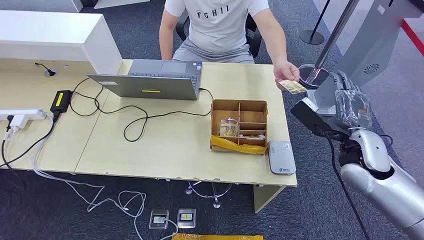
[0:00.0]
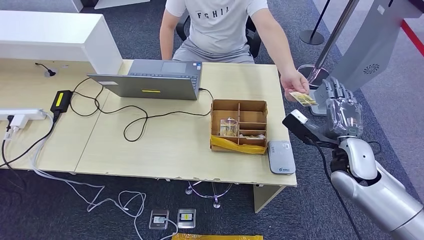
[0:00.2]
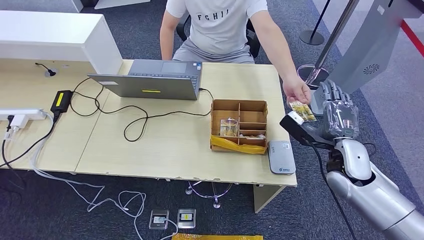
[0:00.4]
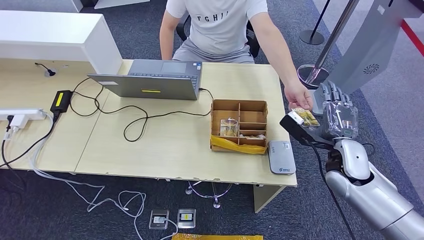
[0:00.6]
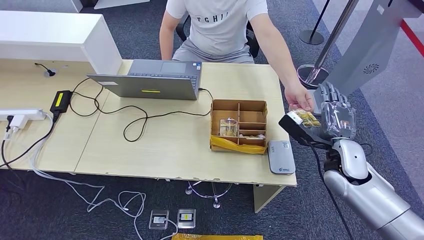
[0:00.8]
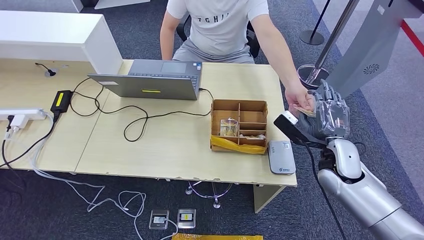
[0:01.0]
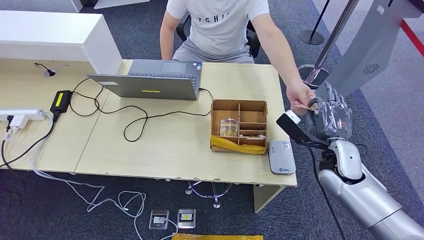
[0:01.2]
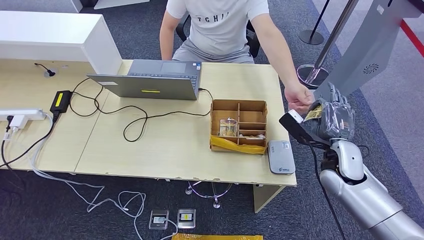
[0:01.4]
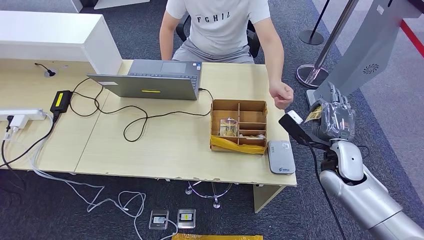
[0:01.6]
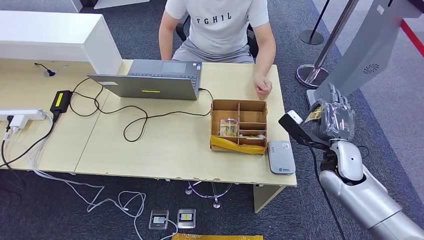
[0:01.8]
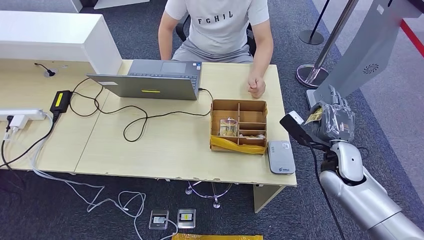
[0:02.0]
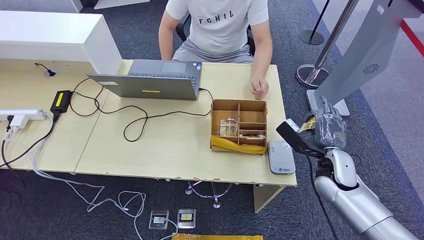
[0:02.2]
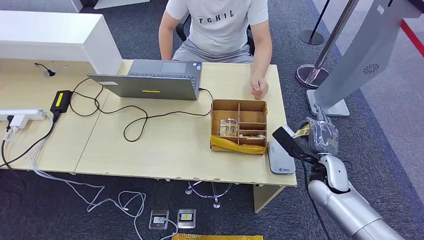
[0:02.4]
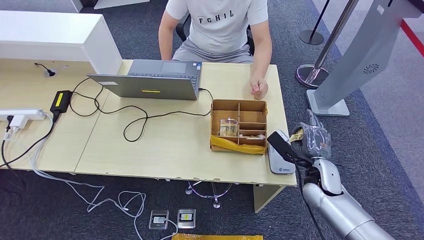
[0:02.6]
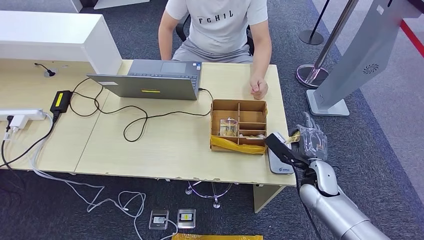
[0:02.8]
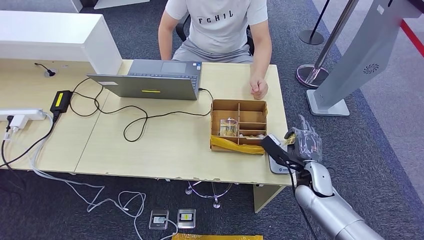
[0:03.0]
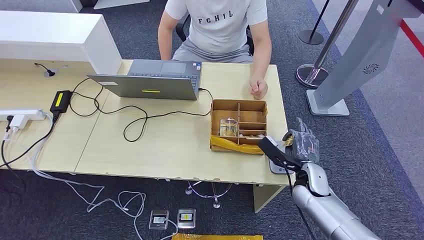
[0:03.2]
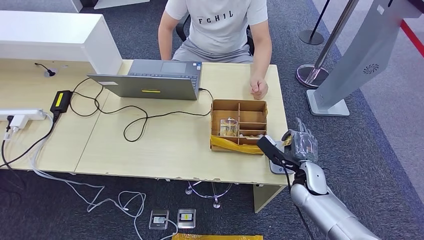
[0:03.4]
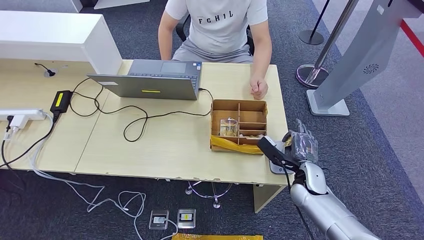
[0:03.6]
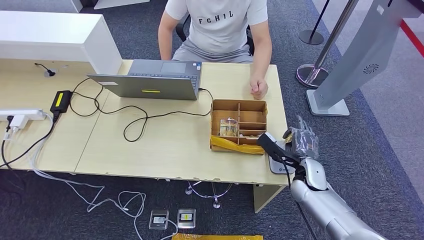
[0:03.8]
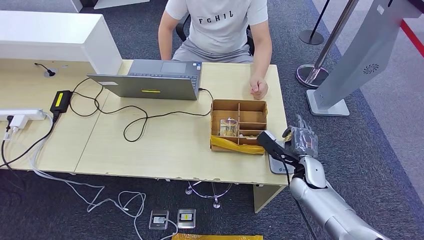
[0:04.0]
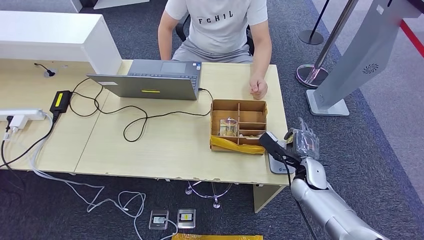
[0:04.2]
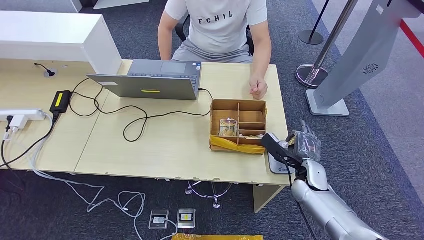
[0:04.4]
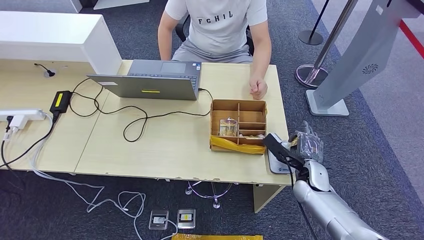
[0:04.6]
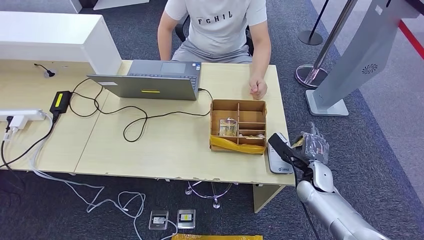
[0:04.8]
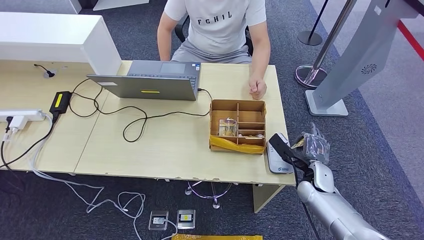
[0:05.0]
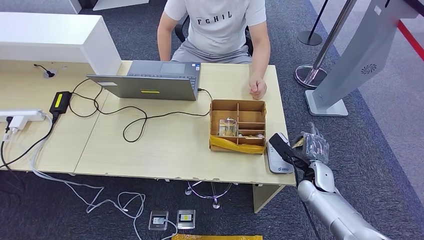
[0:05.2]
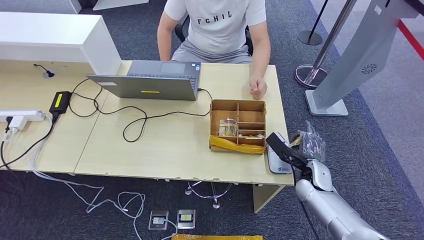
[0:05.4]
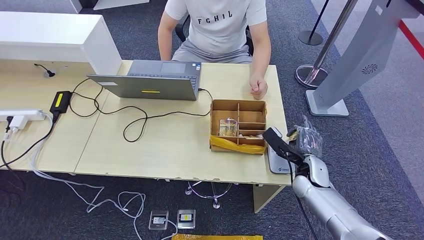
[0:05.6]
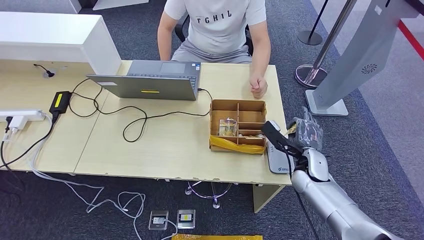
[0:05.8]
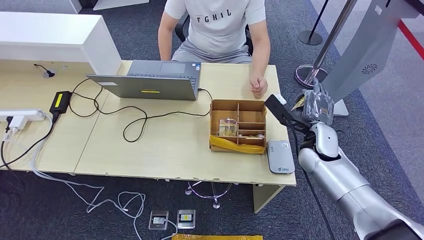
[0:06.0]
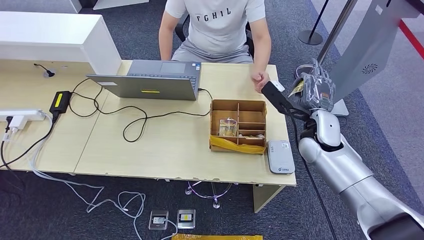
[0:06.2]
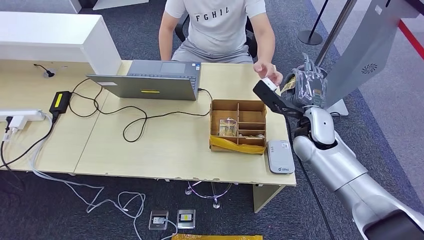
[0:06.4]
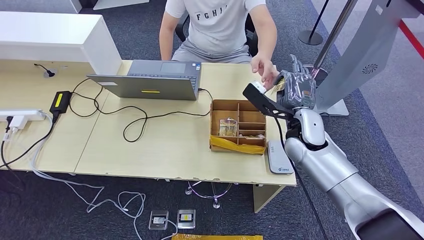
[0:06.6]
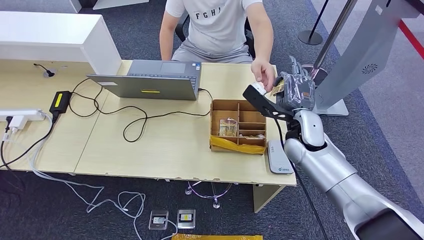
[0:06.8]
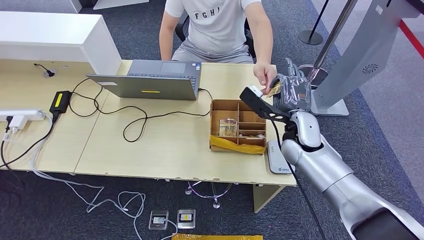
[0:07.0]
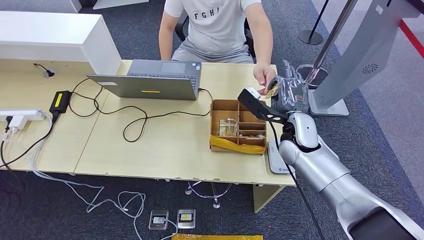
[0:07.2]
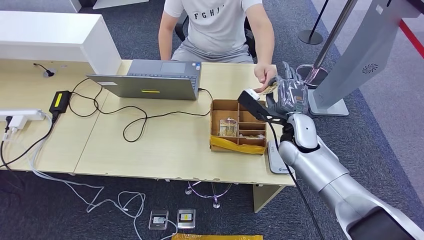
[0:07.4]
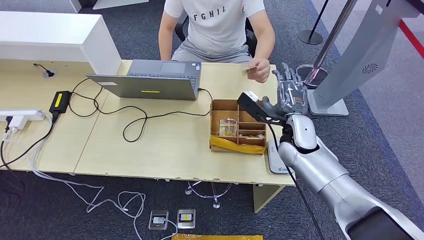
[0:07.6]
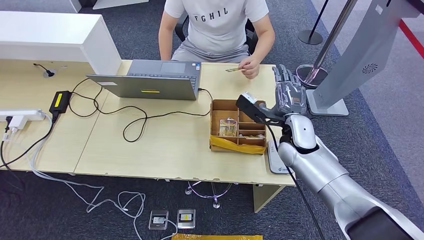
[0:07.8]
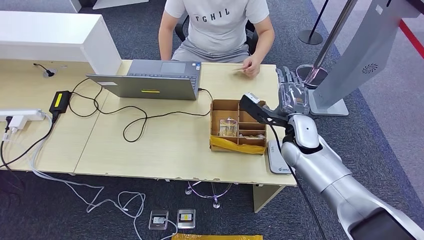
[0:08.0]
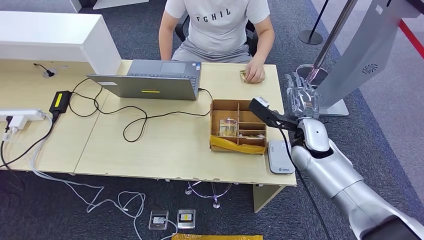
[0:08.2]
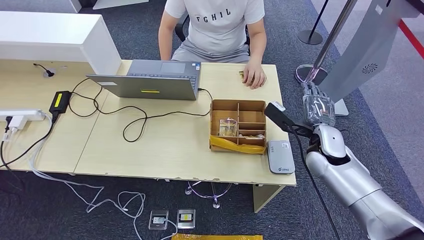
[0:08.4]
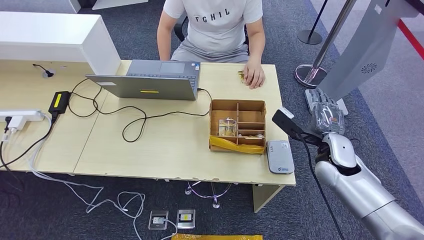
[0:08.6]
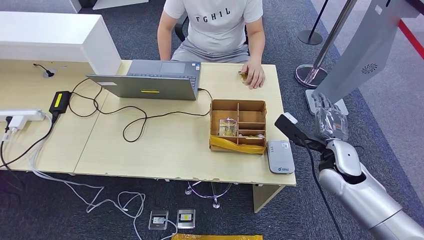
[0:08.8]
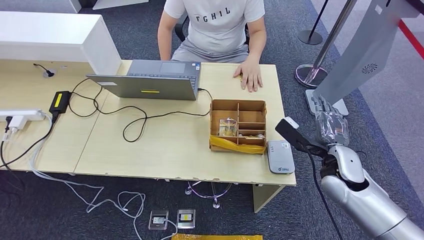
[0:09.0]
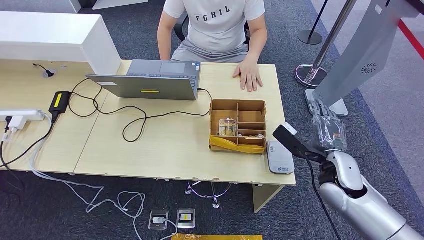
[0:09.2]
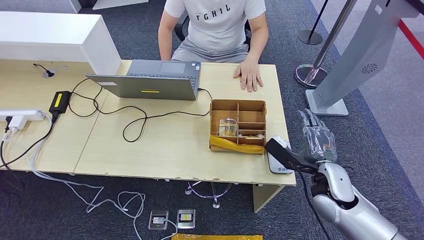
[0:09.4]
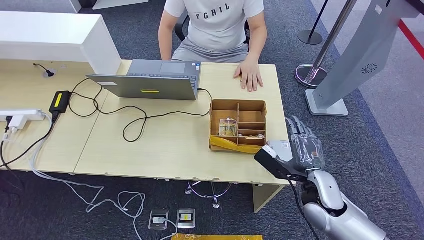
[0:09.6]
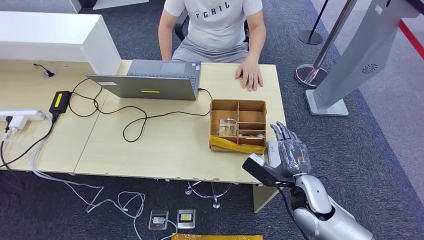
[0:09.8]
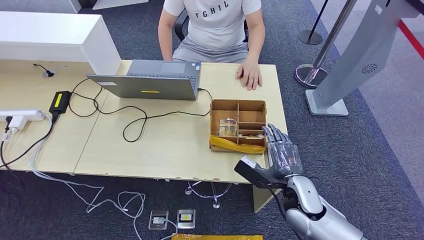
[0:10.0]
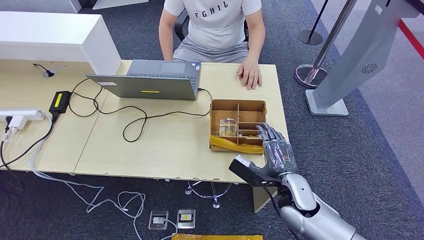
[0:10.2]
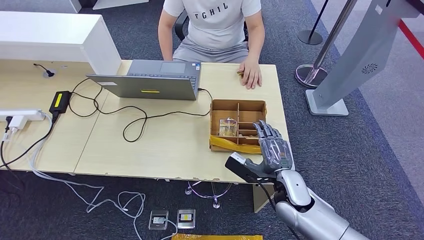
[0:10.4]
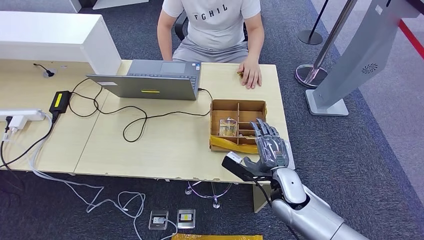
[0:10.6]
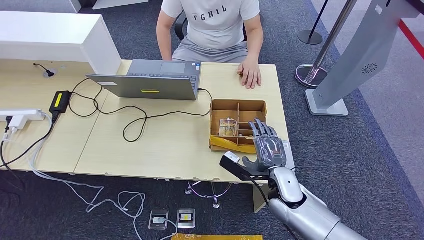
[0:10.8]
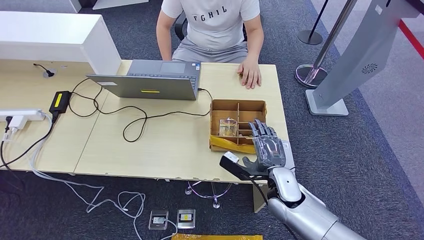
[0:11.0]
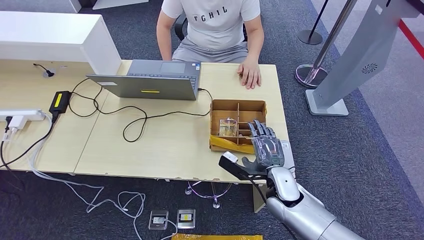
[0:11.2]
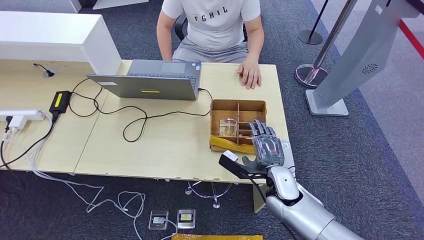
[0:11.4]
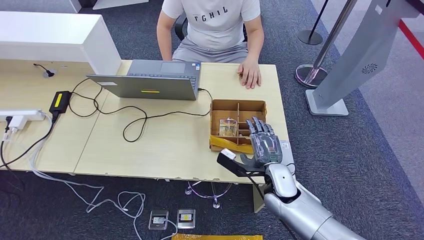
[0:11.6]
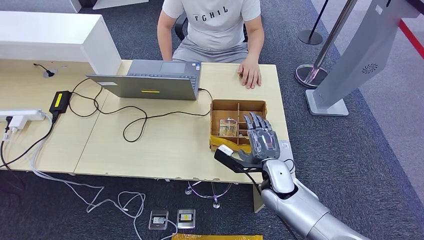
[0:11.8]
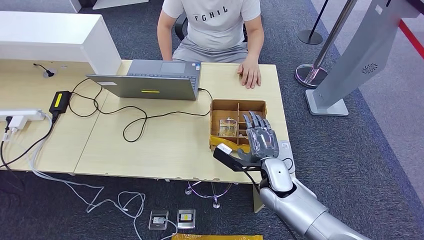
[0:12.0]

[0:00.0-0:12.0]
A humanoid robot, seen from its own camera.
Step, 0:00.0 to 0:01.4: Take the ID card from the person's hand.
Step, 0:01.6 to 0:05.6: Place the ID card on the card reader.
Step, 0:06.0 to 0:08.2: Hand the ID card to the person.
0:01.6 to 0:03.0: The right hand travels downward by about 10 cm.
0:03.0 to 0:04.4: The hands make only small movements.
0:04.4 to 0:06.0: The right hand shifts about 10 cm upward.
0:06.0 to 0:07.6: The right hand shifts about 5 cm to the left.
0:07.6 to 0:09.0: The right hand moves to the right and backward, about 10 cm.
0:09.0 to 0:10.4: The right hand shifts some 15 cm to the left and downward.
0:10.4 to 0:12.0: The hands move only a little.

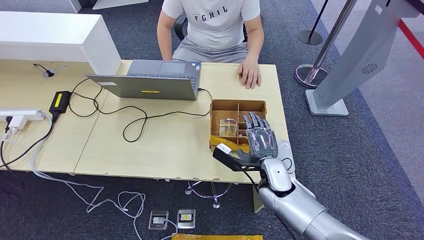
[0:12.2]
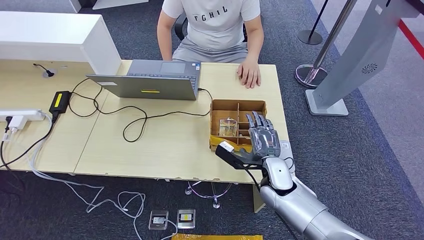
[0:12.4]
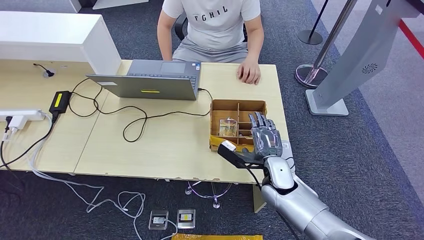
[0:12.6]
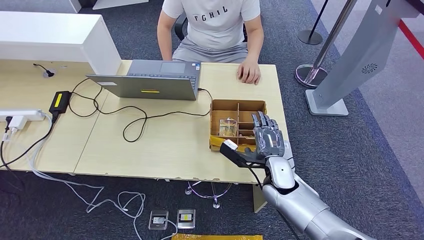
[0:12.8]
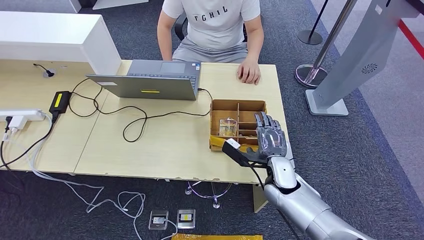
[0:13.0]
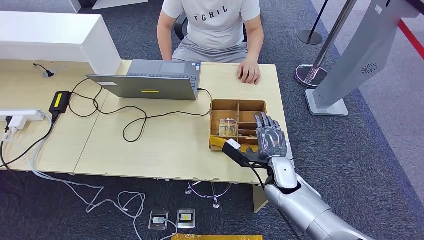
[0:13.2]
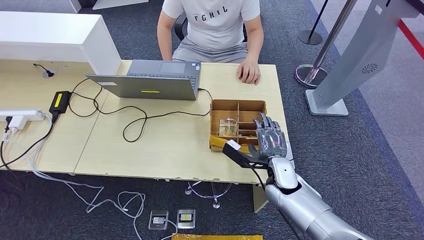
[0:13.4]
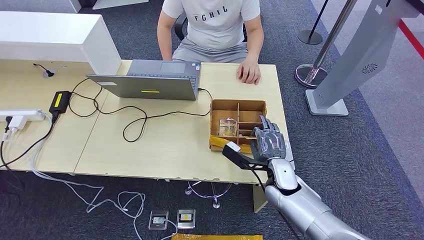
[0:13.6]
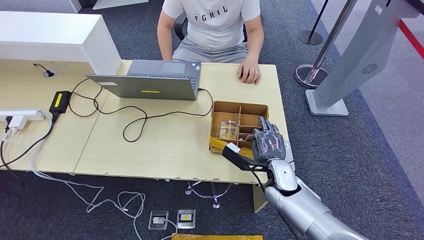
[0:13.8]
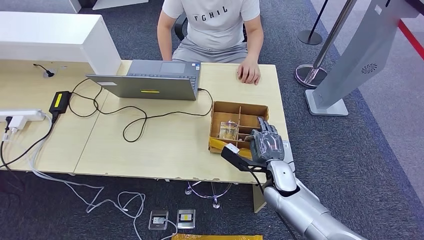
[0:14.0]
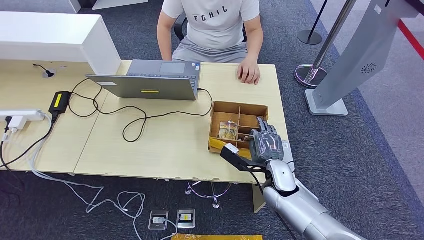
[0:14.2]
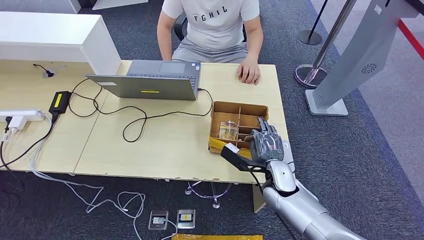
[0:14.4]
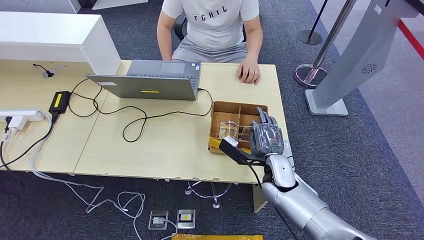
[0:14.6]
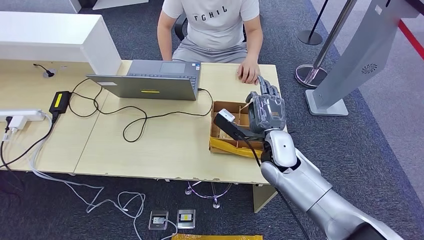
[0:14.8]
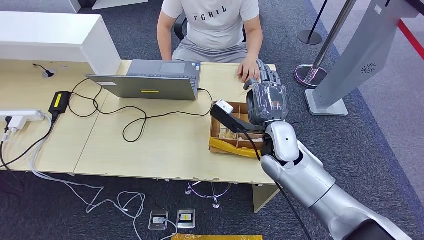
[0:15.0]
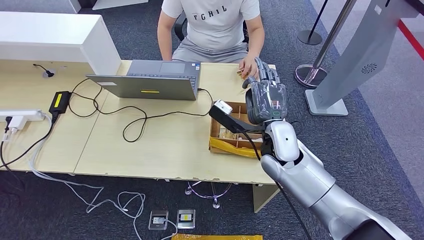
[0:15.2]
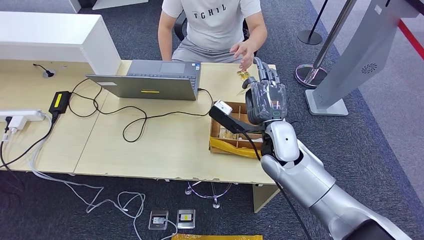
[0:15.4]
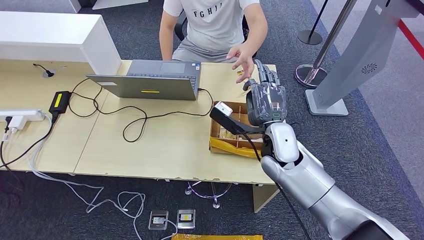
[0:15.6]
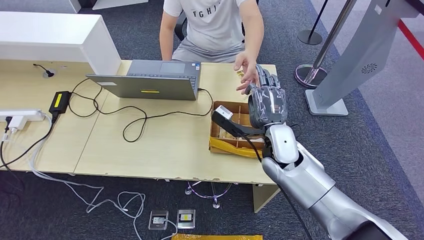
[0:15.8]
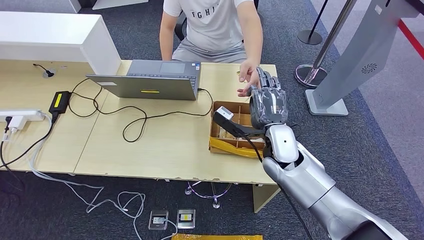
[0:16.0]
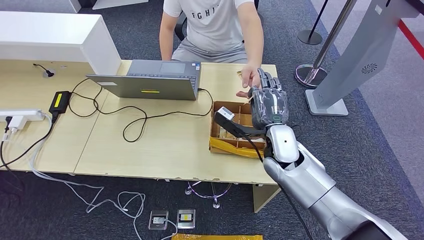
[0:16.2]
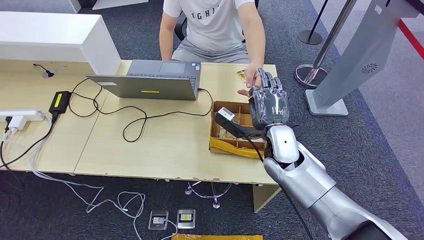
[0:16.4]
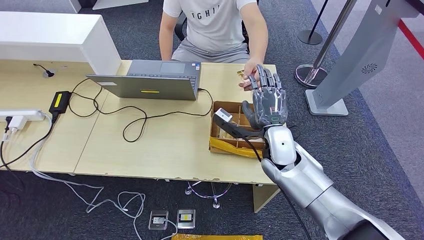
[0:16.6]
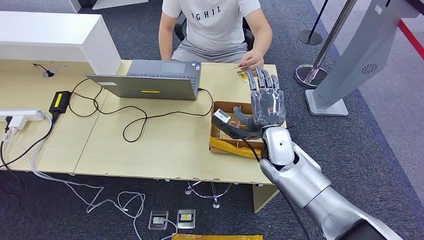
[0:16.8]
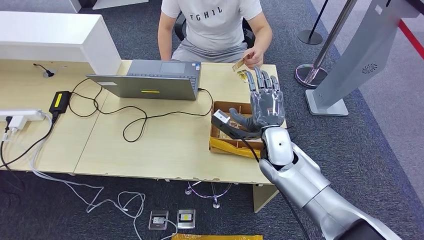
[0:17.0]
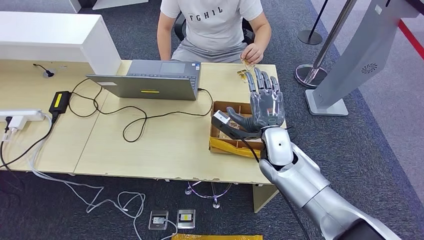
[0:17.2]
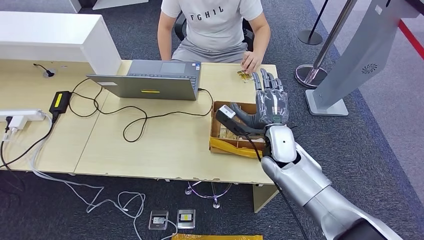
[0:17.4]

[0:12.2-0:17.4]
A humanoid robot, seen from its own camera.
Step, 0:13.8 to 0:15.0: Pick up the room key from the key card box.
Step, 0:15.2 to 0:17.4: Hand the room key to the person.
0:12.2 to 0:14.0: The hands move only a little.
0:14.0 to 0:15.6: The right hand shifts approximately 15 cm upward.
0:15.6 to 0:17.4: The hands move only a little.
